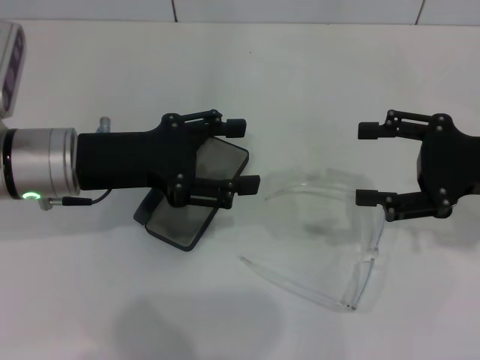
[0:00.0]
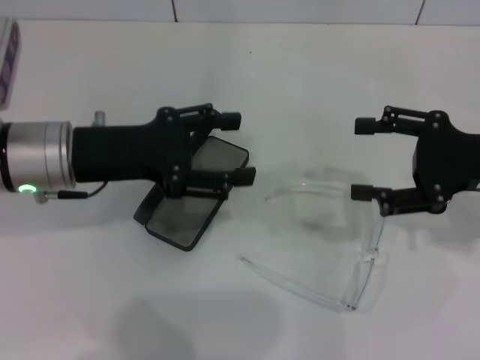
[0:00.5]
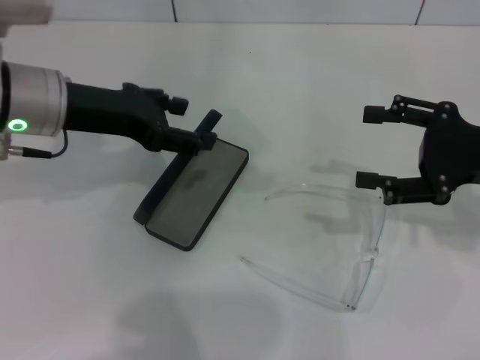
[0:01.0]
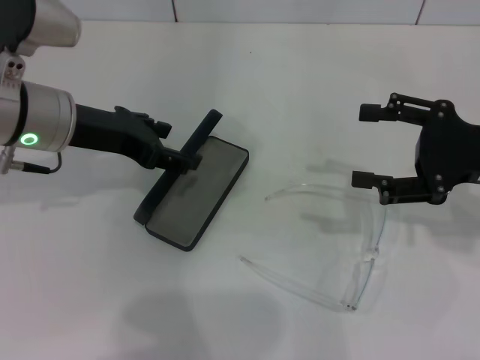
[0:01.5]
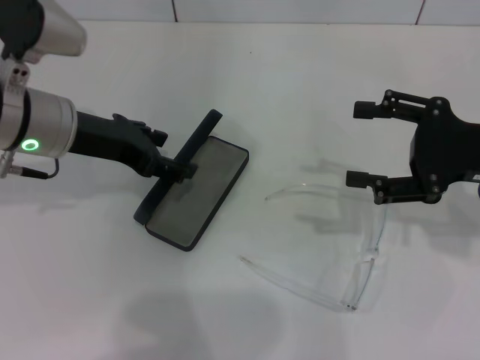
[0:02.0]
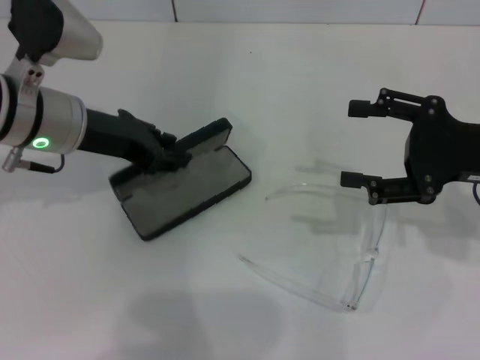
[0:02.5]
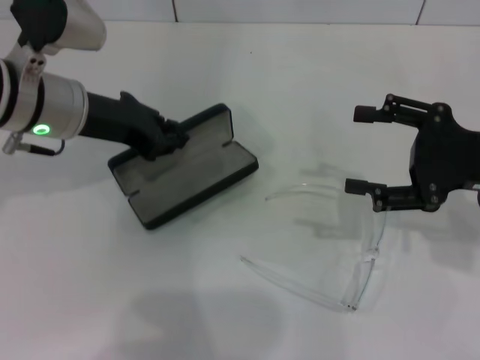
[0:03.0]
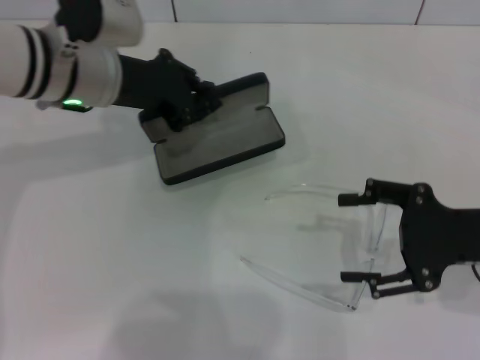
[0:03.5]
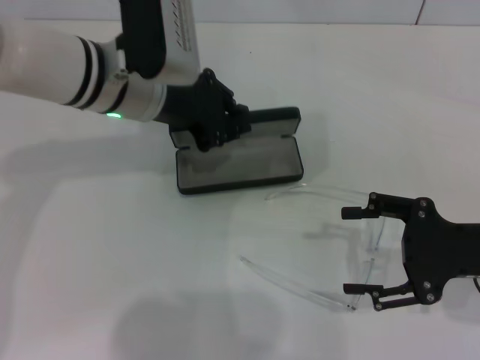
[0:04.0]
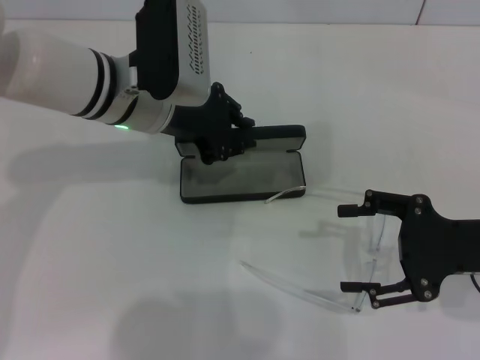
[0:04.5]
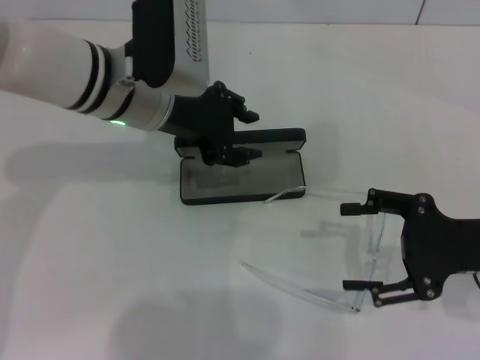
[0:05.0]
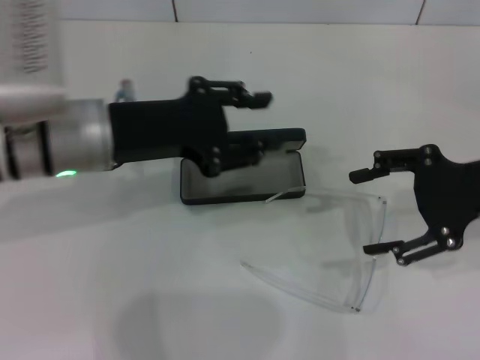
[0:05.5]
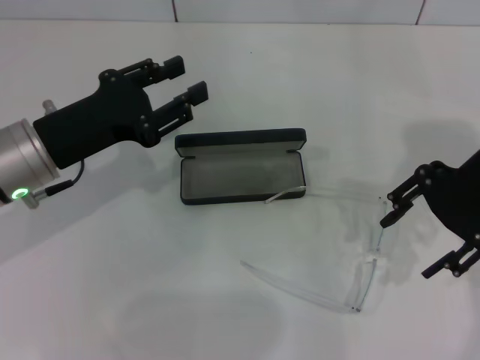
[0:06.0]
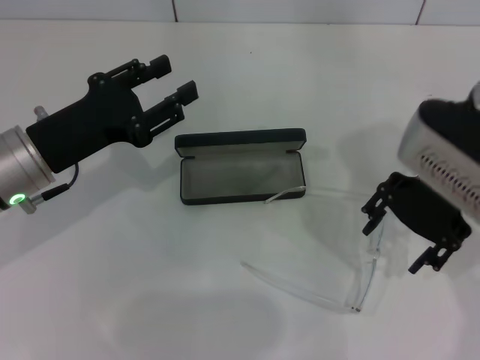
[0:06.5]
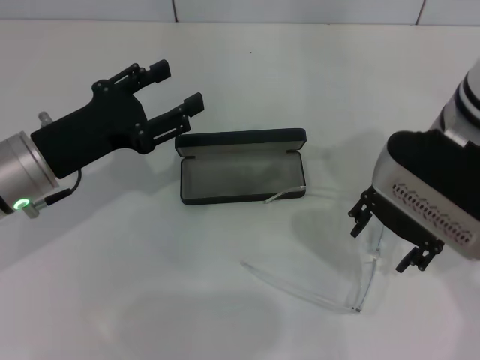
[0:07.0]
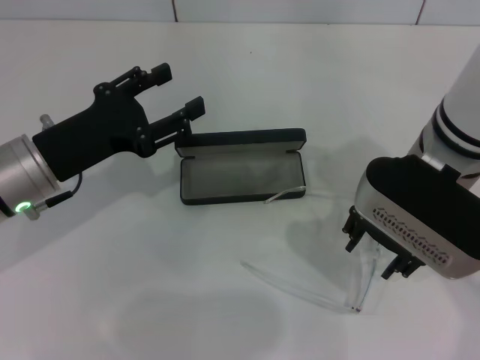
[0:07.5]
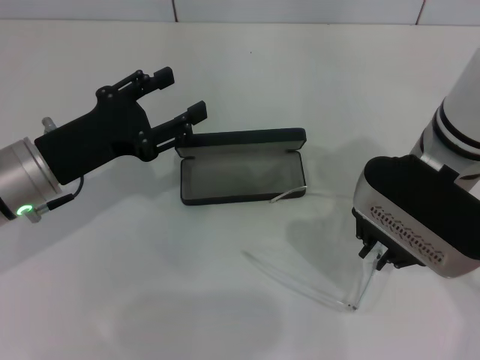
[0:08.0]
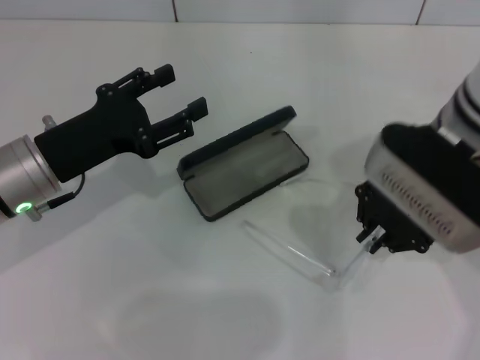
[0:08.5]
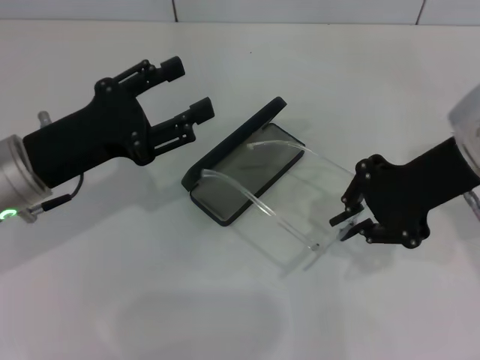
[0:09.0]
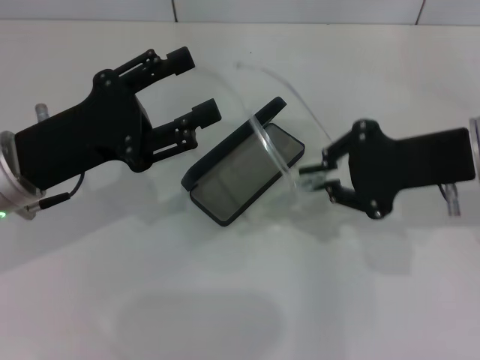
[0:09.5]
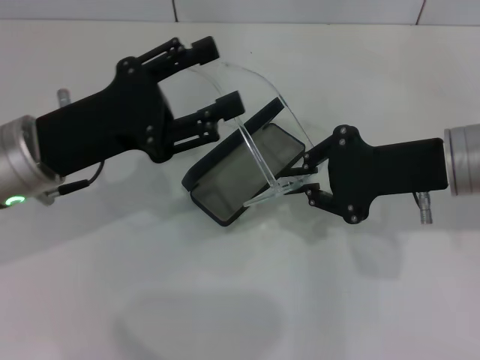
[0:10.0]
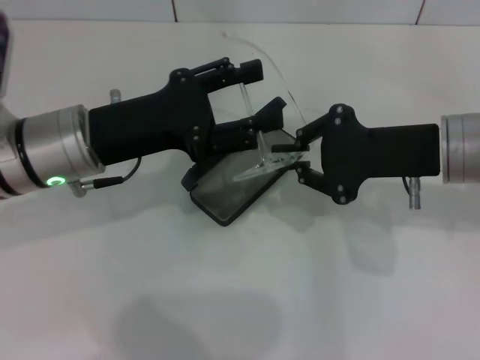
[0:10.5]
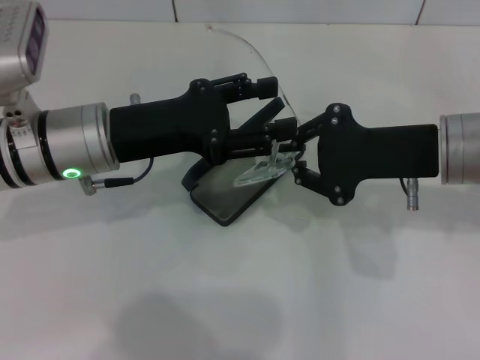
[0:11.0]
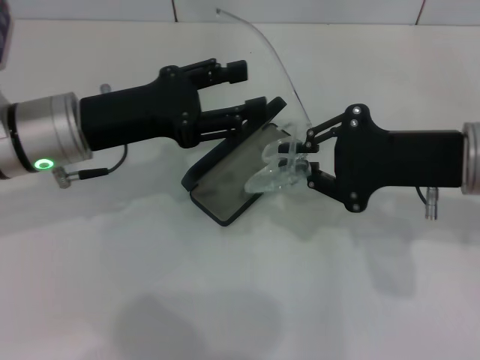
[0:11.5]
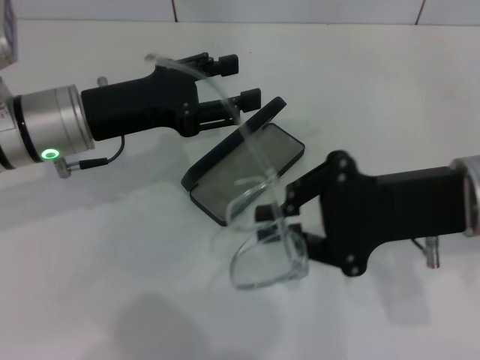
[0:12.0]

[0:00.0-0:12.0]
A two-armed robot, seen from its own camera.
Step, 0.0 to 2.5 s: Grab the glasses case with your left hand.
Step, 3.0 to 4.5 s: Place the glasses case in the center of the table with your left hand.
Step, 5.0 to 8.0 s: Grab the eyeglass frame with your right hand.
2.0 to 4.0 s: The left gripper is displaced to the right by approximately 10 cm, and closes its fingers. The right gripper shifts about 5 cm backward.
4.0 to 6.0 s: The right gripper travels upward, forward and to the left by some 15 cm; the left gripper moves to the left and backward, about 15 cm, and opens.
6.0 to 8.0 s: The left gripper opens its fingers, while the right gripper moves to the left and downward, about 10 cm, and closes up.
8.0 to 10.0 s: The right gripper moves to the right, approximately 5 cm.
10.0 to 12.0 s: The left gripper heads forward, covering about 5 cm.

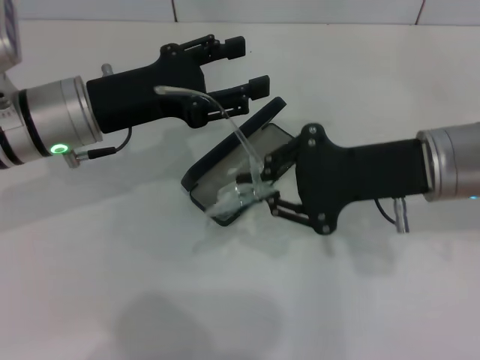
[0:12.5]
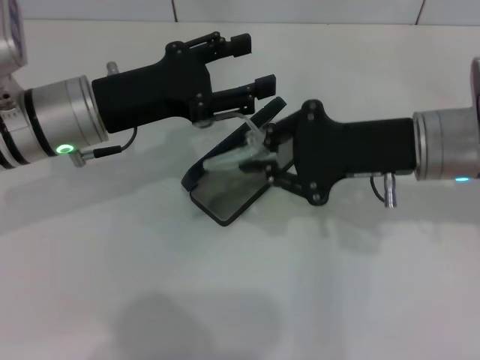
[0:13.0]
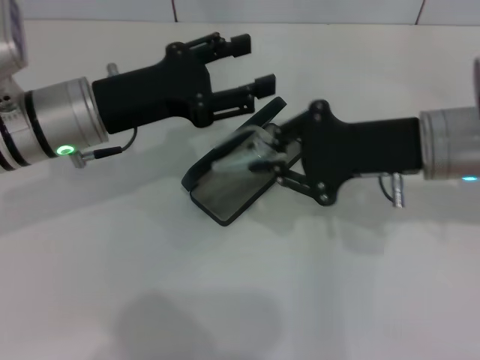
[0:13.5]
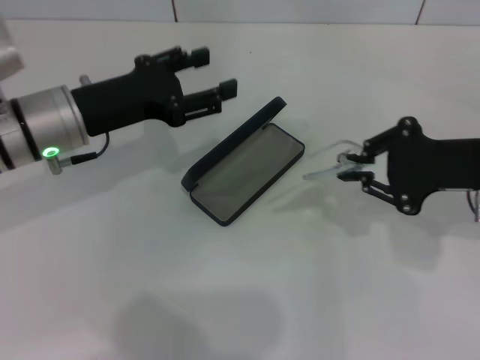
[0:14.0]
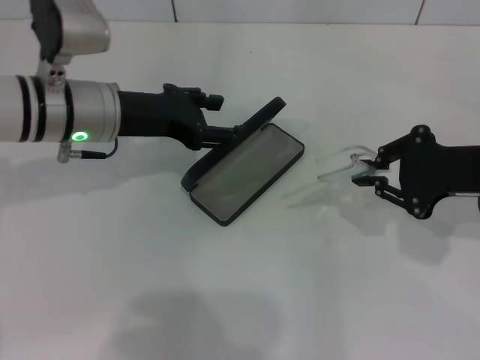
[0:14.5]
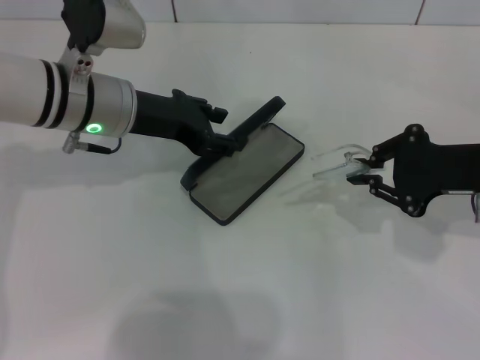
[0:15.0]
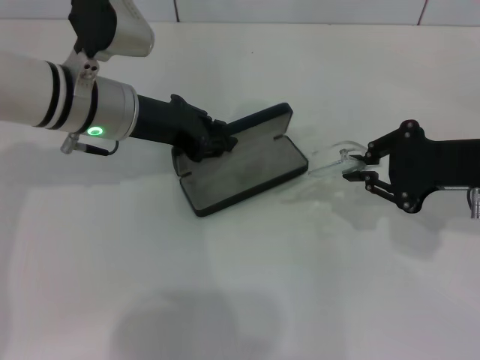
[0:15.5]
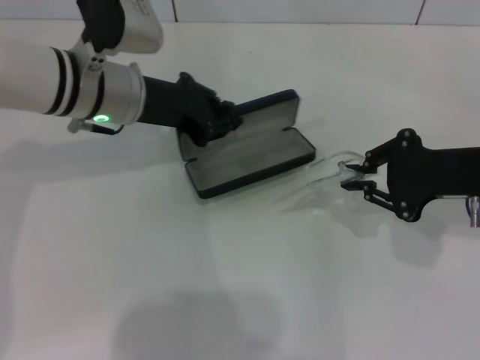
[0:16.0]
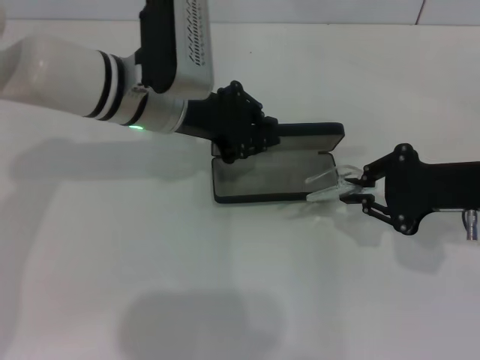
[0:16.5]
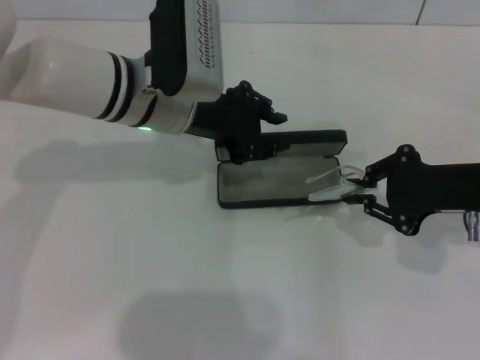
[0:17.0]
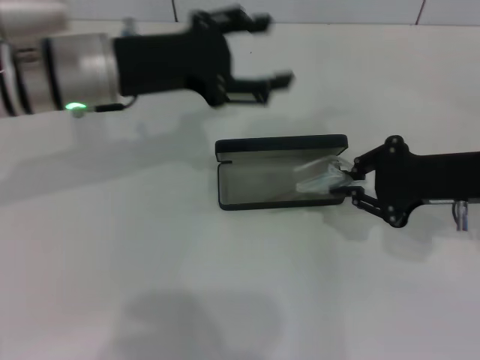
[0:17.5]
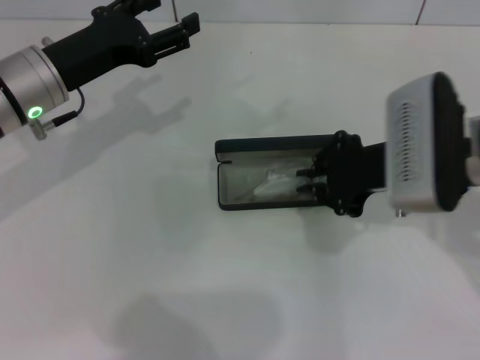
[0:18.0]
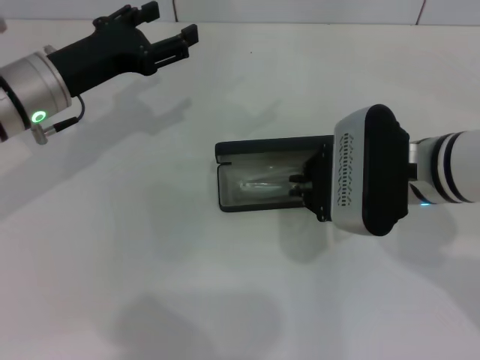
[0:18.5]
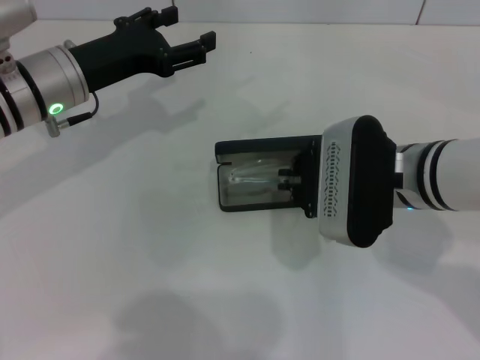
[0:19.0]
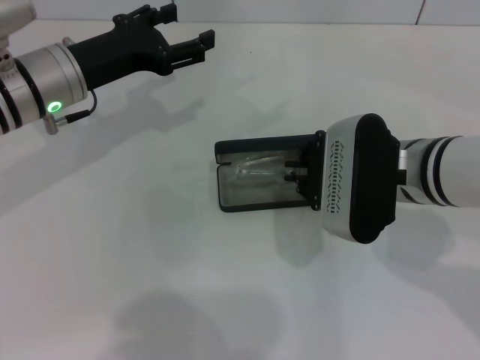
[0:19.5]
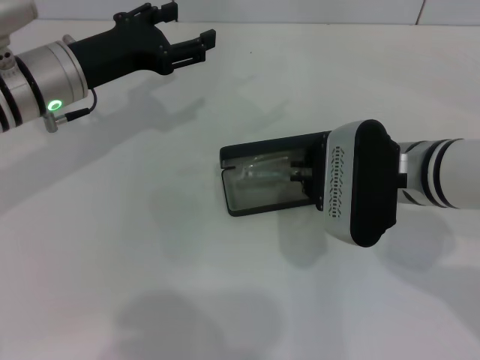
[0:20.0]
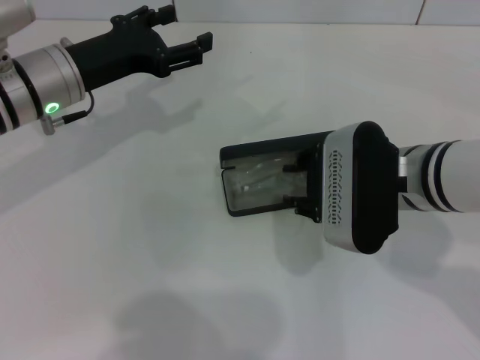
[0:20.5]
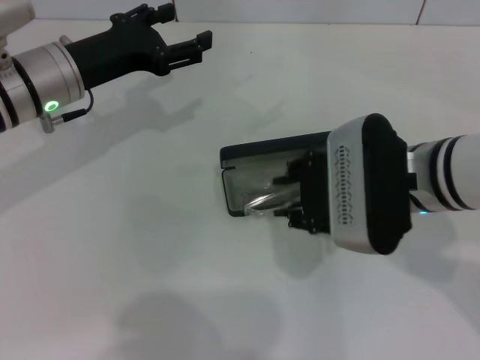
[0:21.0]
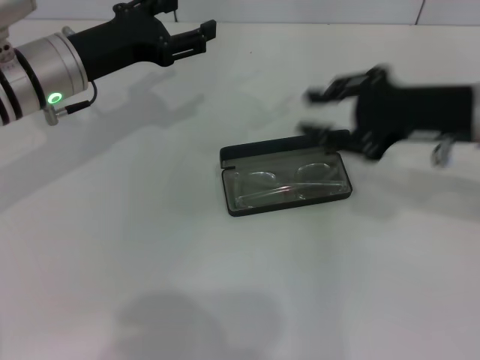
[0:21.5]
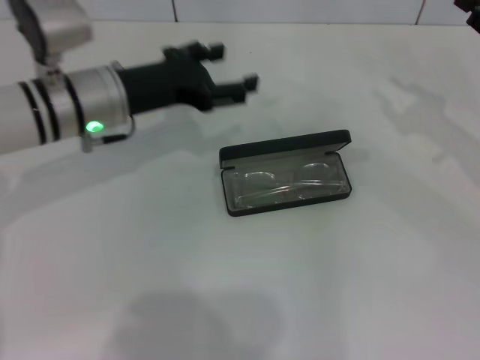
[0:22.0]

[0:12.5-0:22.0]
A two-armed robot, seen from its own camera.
Step, 13.5 to 17.0 s: Place the glasses case in the center of the table with your left hand.
Step, 17.5 to 21.0 s: Put the glasses into the case with your right hand.
12.5 to 14.5 s: The right gripper travels to the right by roughly 10 cm.
14.5 to 16.5 s: The left gripper travels to the right by some 5 cm, and closes up.
16.5 to 18.0 s: The grippers both shift to the left by some 10 cm. The left gripper opens.
18.0 to 20.0 s: The grippers make only small movements.
20.0 to 22.0 s: The right gripper is displaced to the right by roughly 20 cm, and opens up.

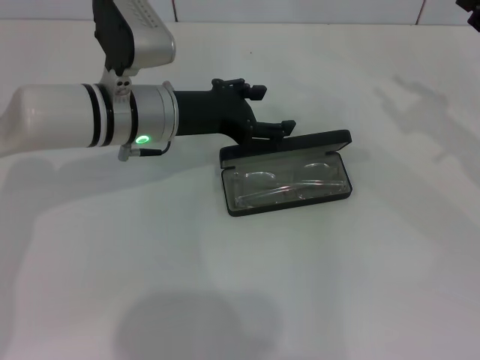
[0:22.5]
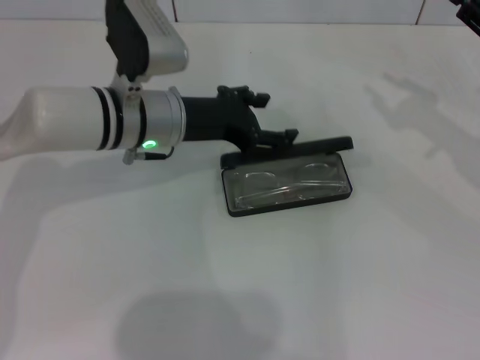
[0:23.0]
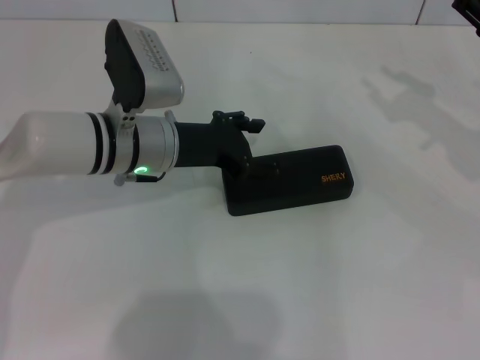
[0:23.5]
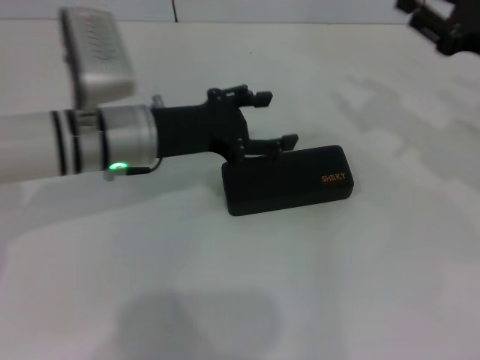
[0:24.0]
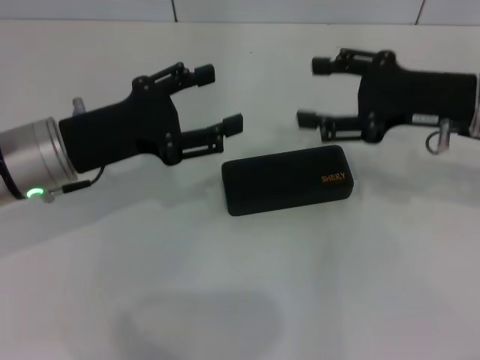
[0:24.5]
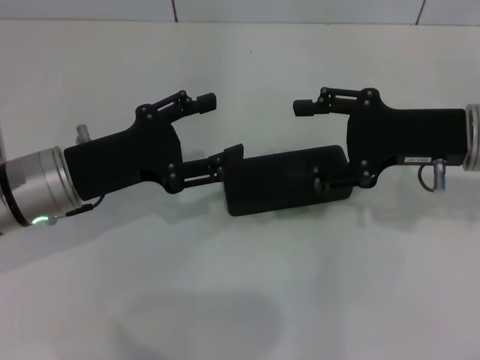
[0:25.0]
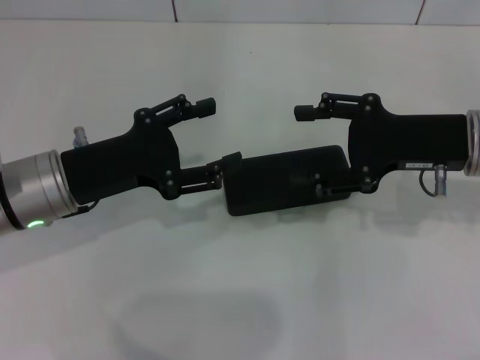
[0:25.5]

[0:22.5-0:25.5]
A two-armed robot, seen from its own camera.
22.5 to 24.0 s: The grippers stay close to where they were, moving slightly.
24.0 to 25.5 s: The left gripper heads to the left and backward, covering approximately 10 cm; the right gripper goes roughly 5 cm to the left, and opens its fingers.

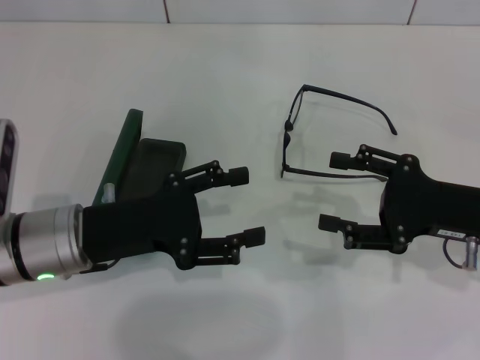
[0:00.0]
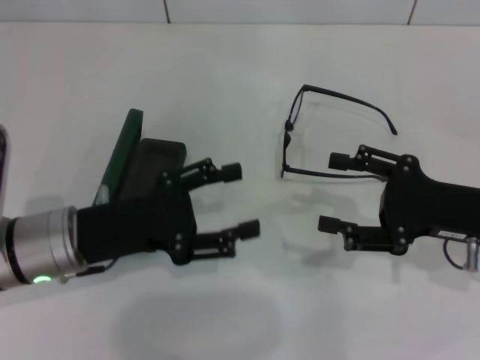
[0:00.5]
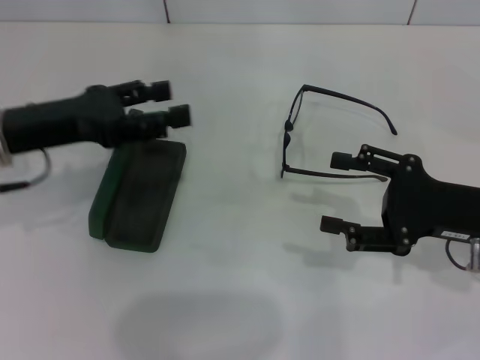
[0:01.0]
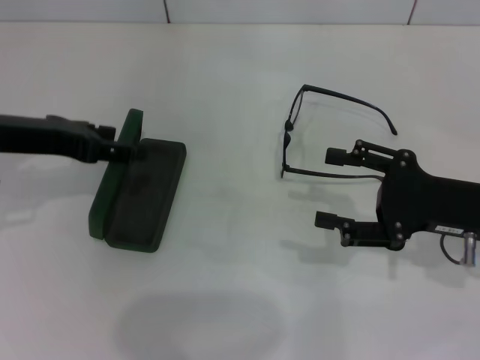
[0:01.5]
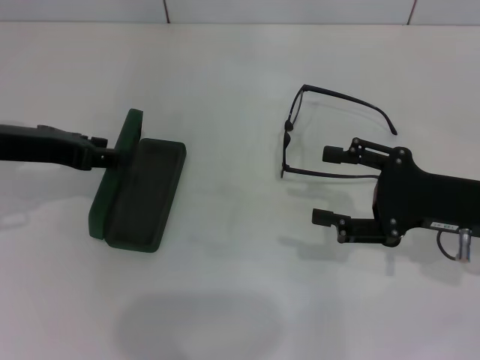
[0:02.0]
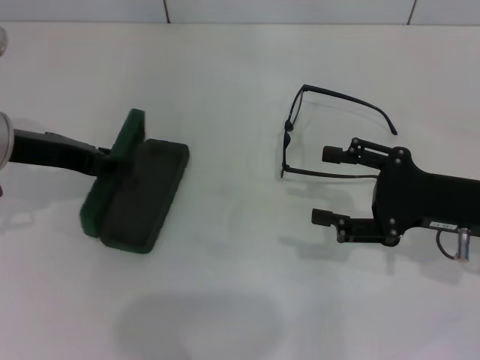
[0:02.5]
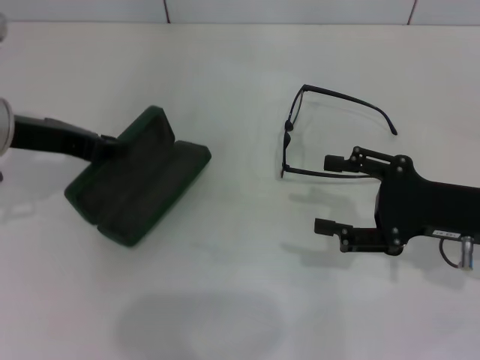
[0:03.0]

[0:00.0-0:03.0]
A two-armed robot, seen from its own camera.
Step, 0.0 to 2.5 s: Grab the glasses case with your left hand.
0.0 to 1.5 s: The left gripper travels upward, to the left and forward by about 15 cm.
1.5 to 3.0 s: The left gripper closes up.
